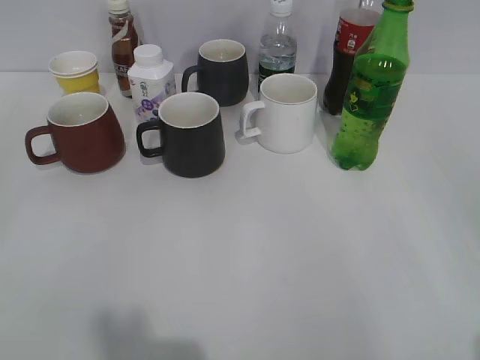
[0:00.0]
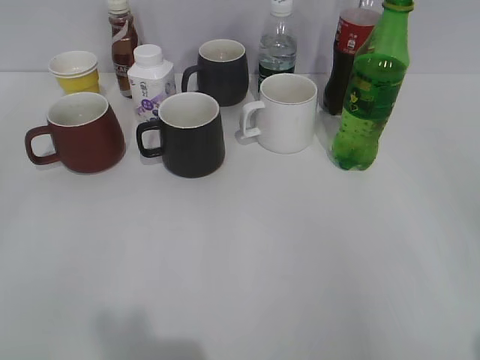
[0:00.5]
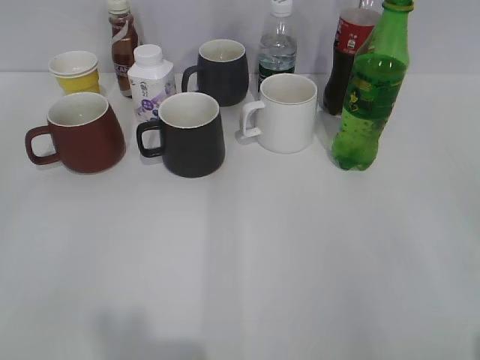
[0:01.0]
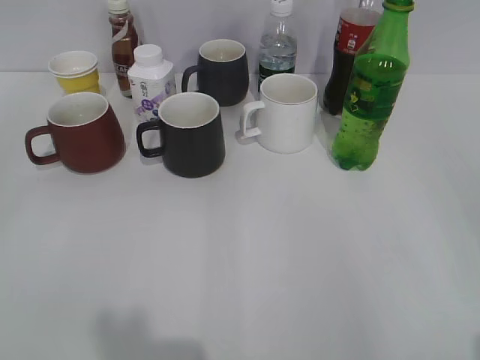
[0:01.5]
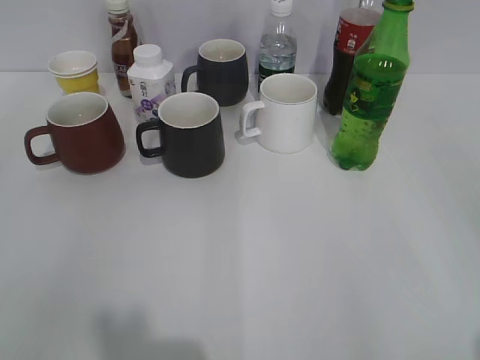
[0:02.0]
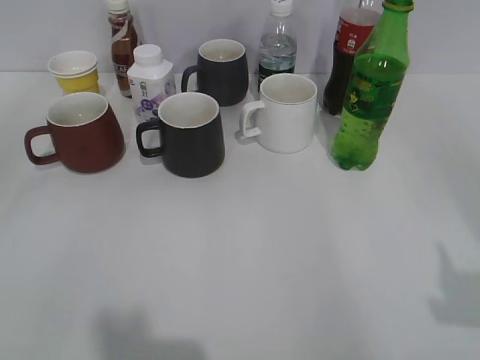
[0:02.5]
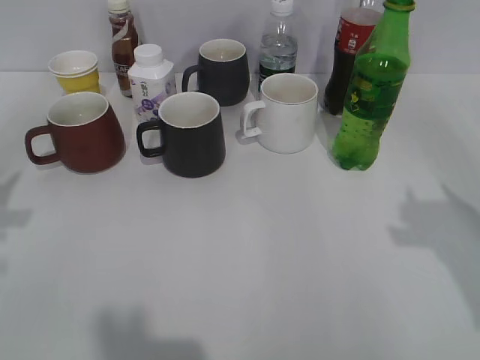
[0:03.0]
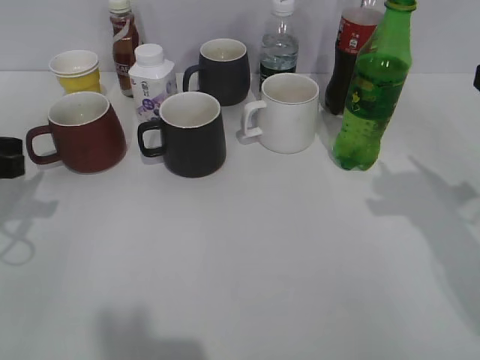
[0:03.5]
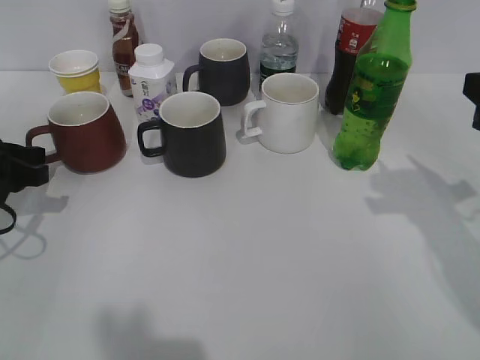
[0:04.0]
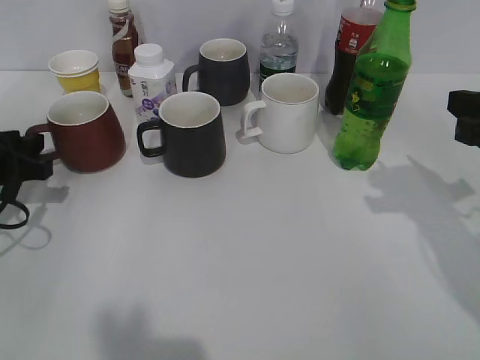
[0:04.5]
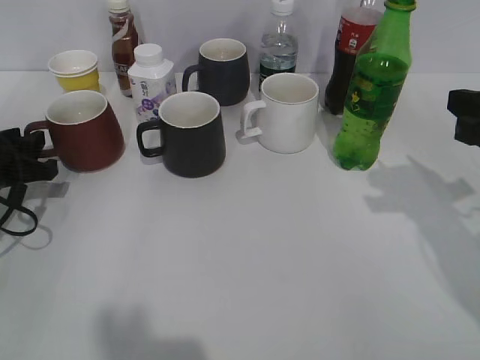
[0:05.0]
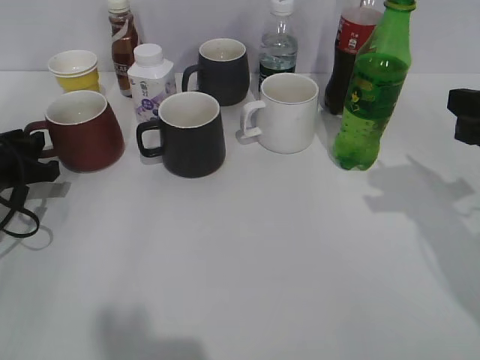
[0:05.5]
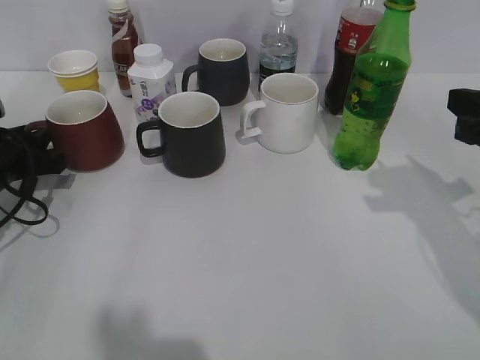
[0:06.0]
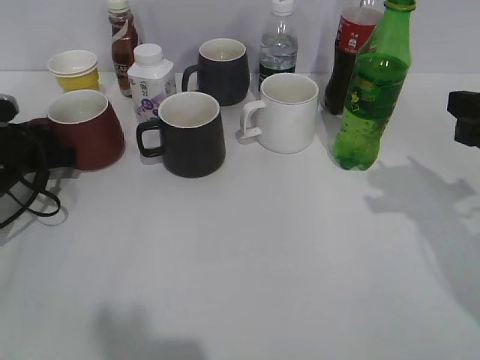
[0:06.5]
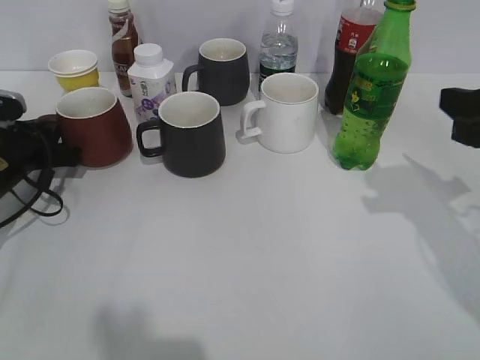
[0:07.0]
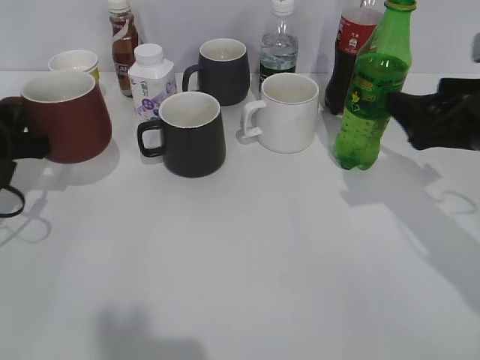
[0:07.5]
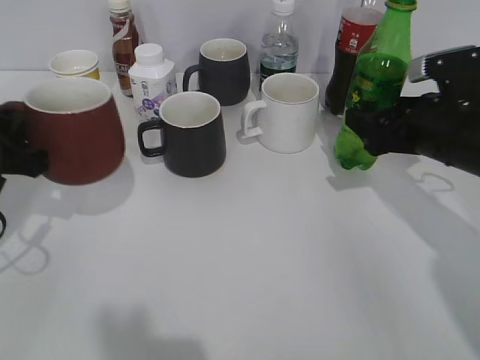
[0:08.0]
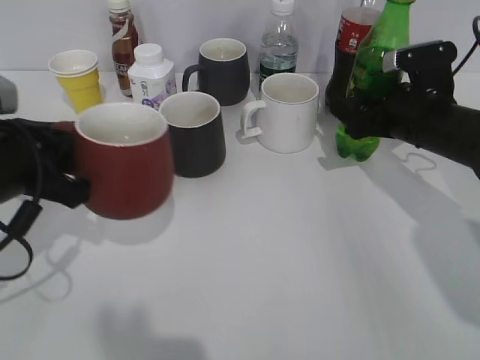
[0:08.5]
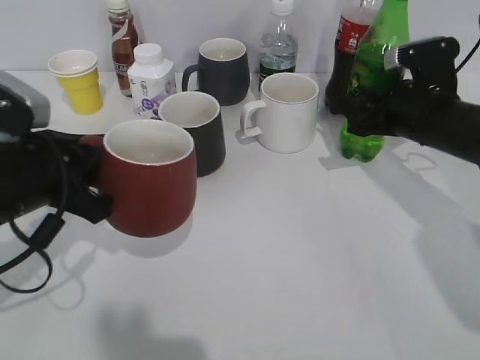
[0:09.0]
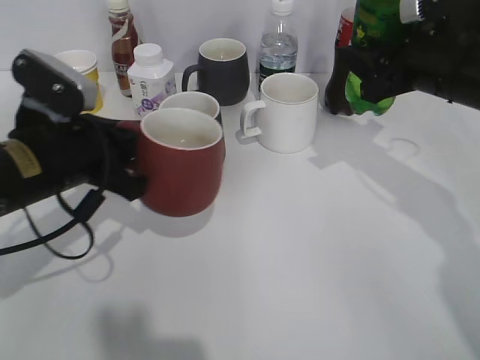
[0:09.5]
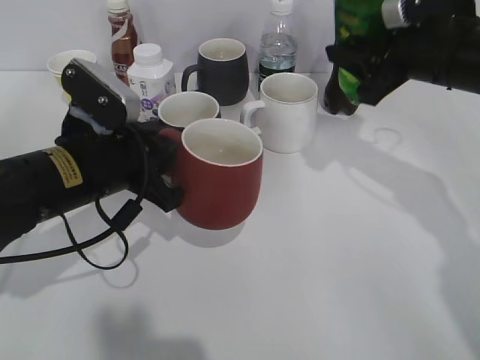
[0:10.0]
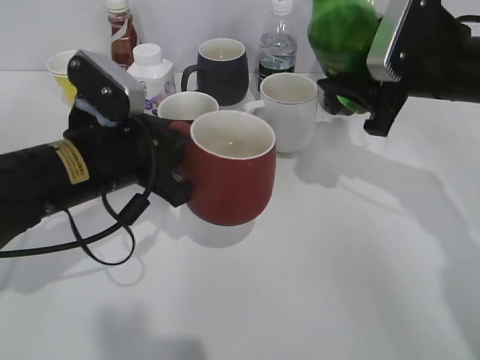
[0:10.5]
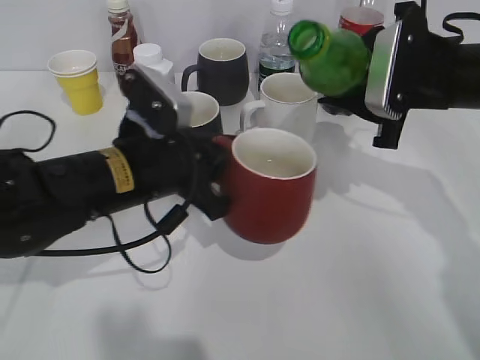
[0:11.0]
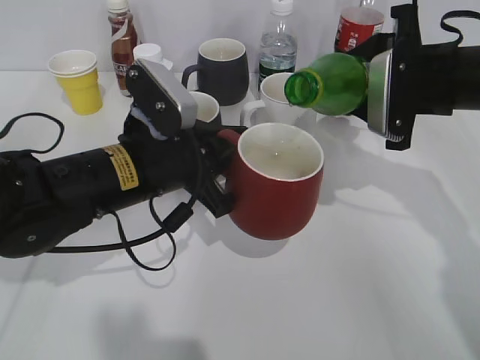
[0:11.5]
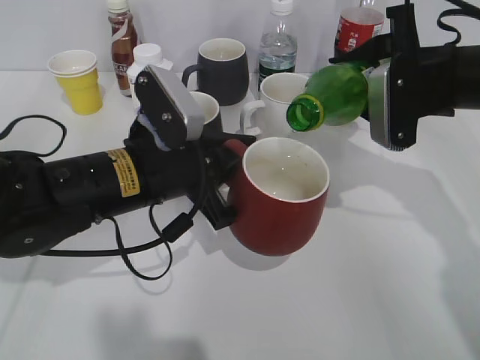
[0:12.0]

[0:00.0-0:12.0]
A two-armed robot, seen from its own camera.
Step, 0:01.5 to 0:06.5: Grasp the red cup with left gripper.
Step, 0:07.0 to 0:08.5: Grasp the bottle with sprite with right gripper.
0:02.0 to 0:04.0: The right gripper travels forward by some 20 cm, and closes its fingers, while the left gripper is displaced forward and downward by about 30 cm.
0:04.0 to 0:06.0: The left gripper shifts by some 5 cm.
0:06.0 to 0:08.0: The left gripper moves upward and backward, some 10 cm, and closes; the right gripper moves forward and downward, some 10 cm, and opens up.
0:08.0 to 0:10.0: The left gripper moves to the right, roughly 10 cm, while the right gripper moves upward, about 5 cm, and closes.
0:10.0 to 0:12.0: The left gripper is displaced to the right by some 5 cm.

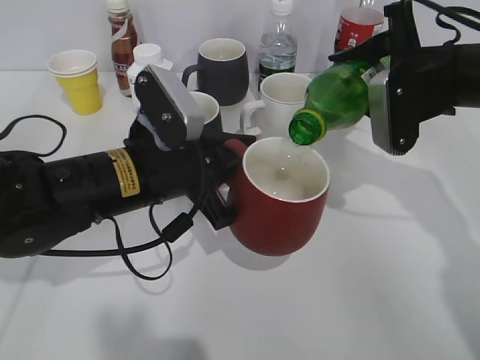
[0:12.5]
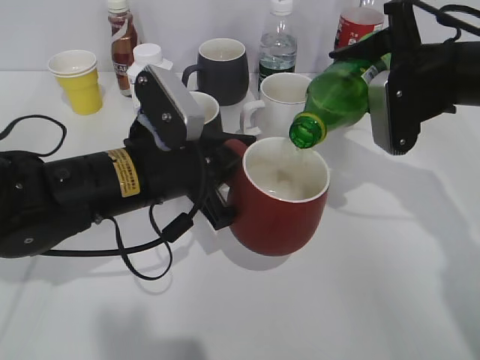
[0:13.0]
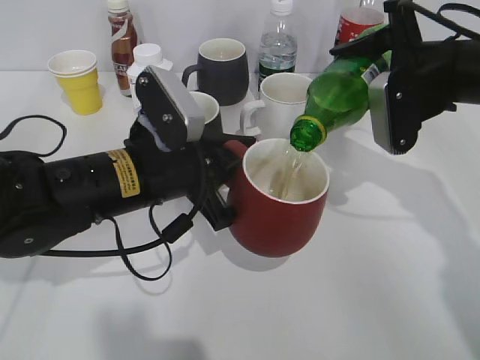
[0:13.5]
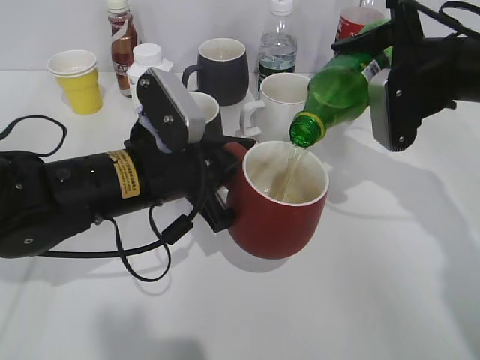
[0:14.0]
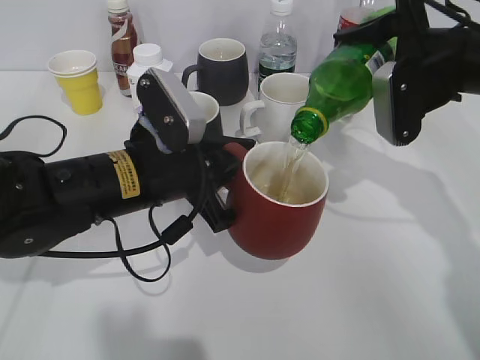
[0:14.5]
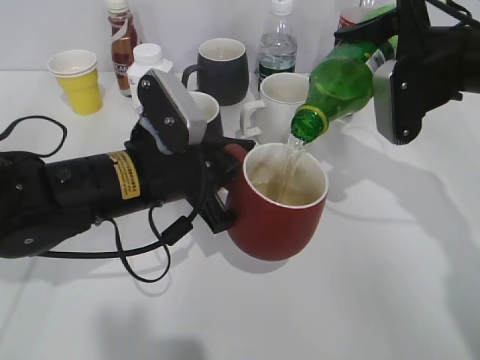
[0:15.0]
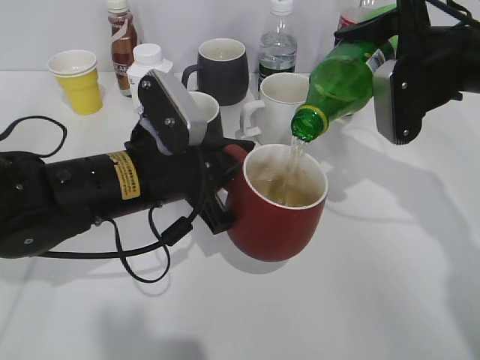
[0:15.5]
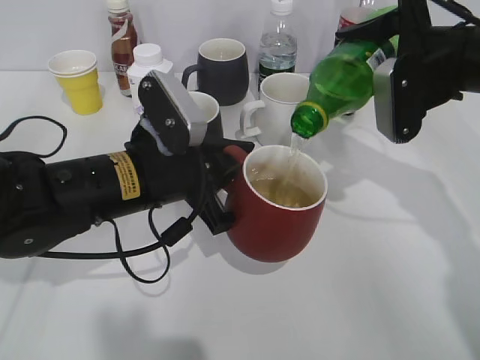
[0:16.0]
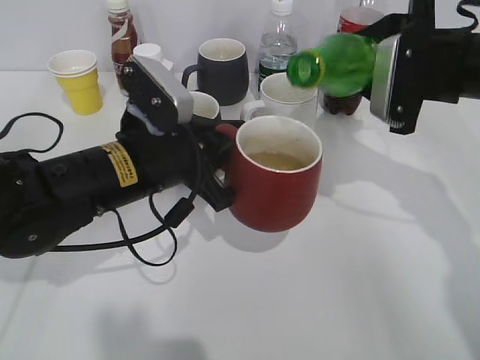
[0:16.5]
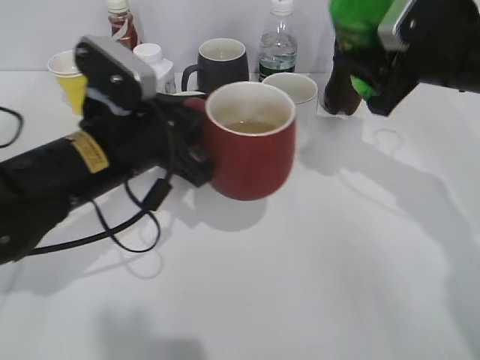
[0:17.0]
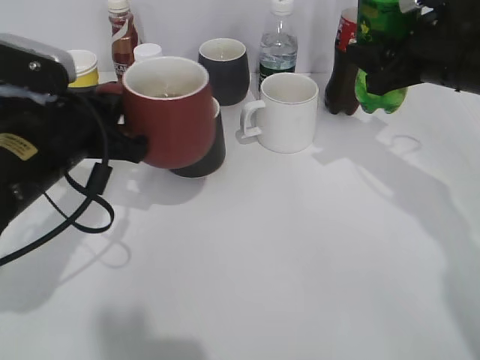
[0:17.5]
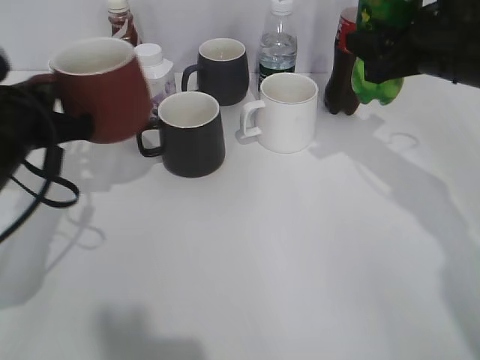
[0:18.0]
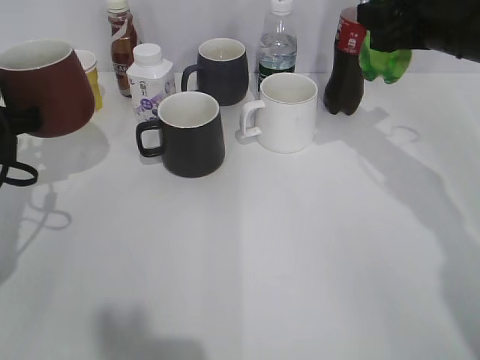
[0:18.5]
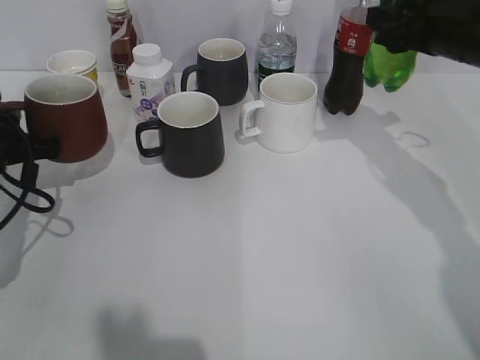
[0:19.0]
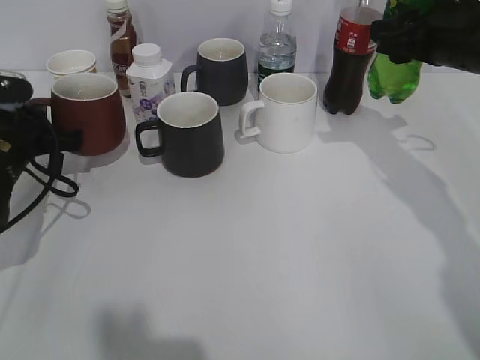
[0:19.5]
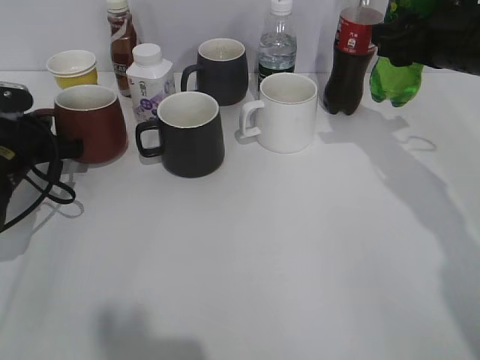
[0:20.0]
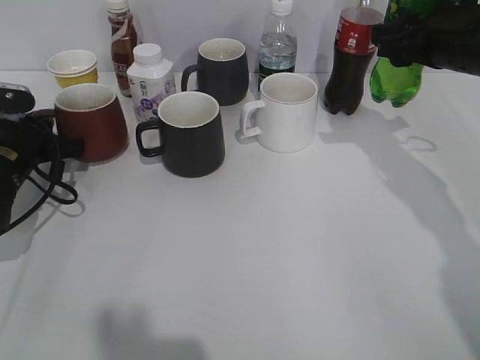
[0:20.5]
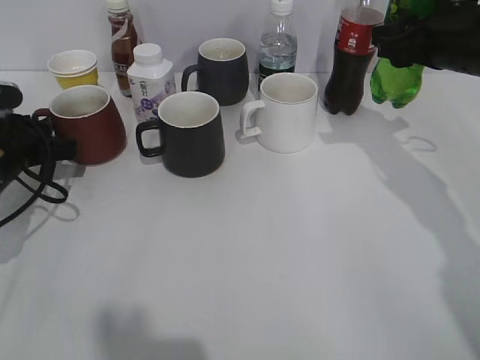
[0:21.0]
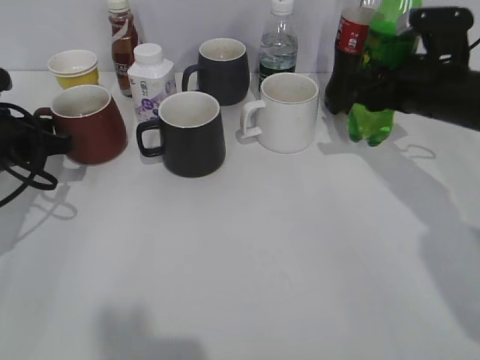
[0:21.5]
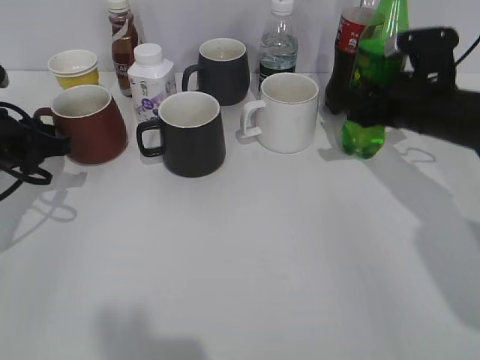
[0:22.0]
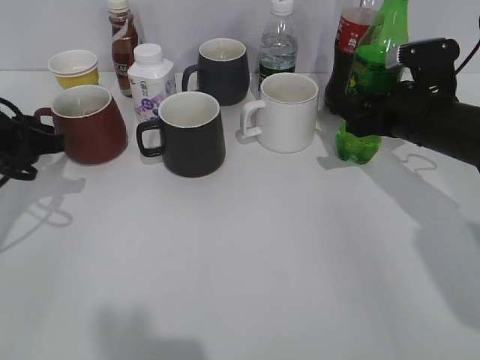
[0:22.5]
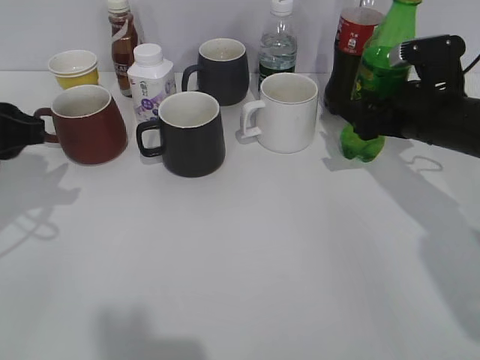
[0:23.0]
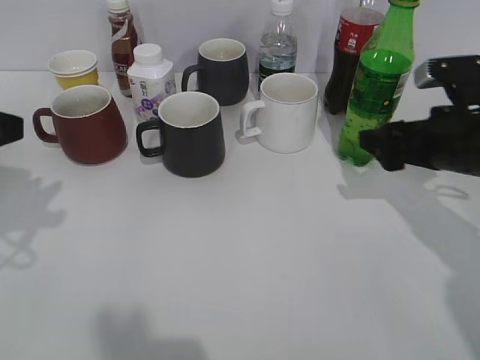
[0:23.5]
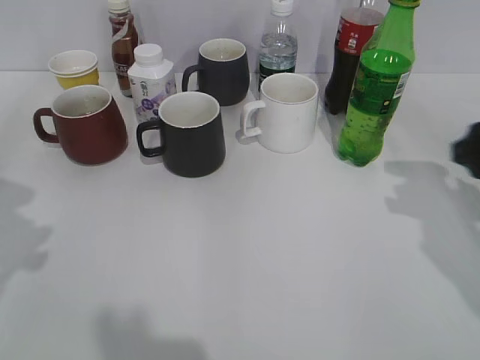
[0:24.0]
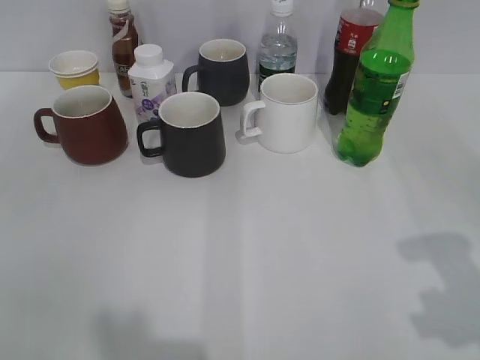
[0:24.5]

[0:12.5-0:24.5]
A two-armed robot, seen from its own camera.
Step, 0:12.5 to 0:16.5: Pour the sprite from bottle to cup with right gripper.
Step, 0:17.0 to 0:20.0: Place the red cup on the table with left gripper.
Step, 0:20.5 to 0:23.5: Place the sprite bottle on the table with right gripper.
0:12.5 to 0:14.5: The grippers stay close to where they were, moving slightly.
0:16.5 to 0:18.5: The left gripper travels to the left by roughly 15 cm.
0:18.5 to 0:20.5: The left gripper goes some 10 cm downward and forward.
0:20.5 to 0:22.5: The right gripper heads downward, covering some 10 cm. Meanwhile the left gripper goes approximately 10 cm upward and backward, and opens its fingers.
0:22.5 to 0:24.5: The two grippers go roughly 25 cm backward and upward.

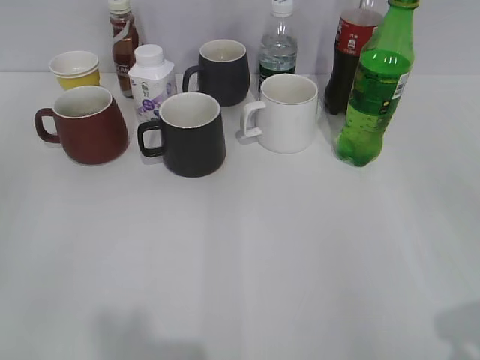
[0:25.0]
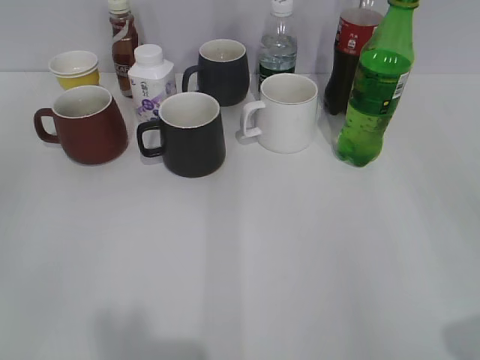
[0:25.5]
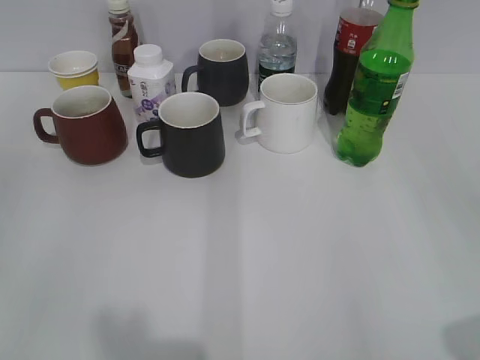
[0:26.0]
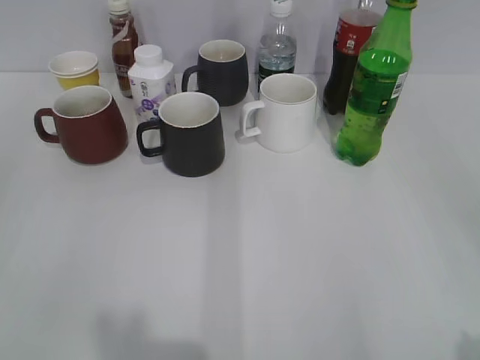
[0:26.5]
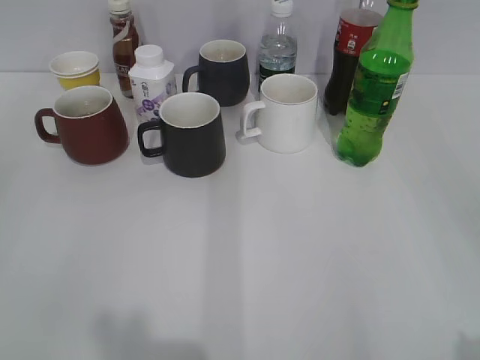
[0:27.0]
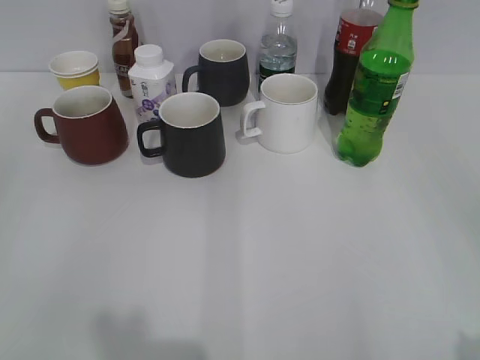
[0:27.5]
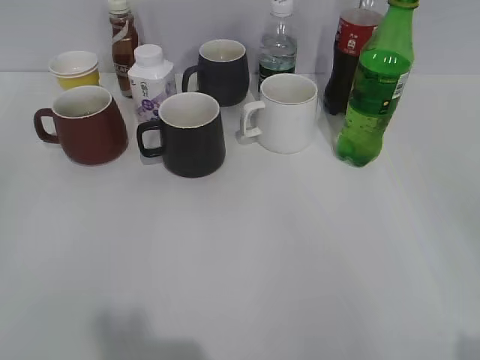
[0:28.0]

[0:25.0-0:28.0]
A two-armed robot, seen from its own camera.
0:26.5 to 0:28.0: Both grippers stay put.
